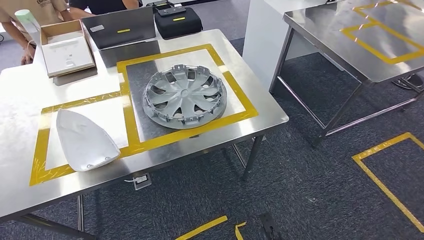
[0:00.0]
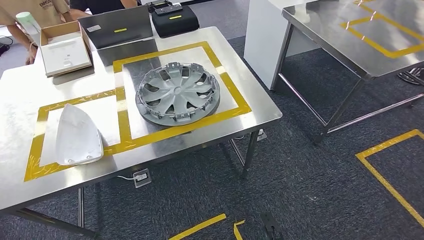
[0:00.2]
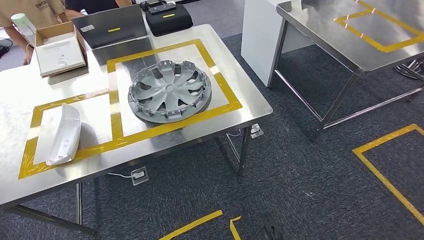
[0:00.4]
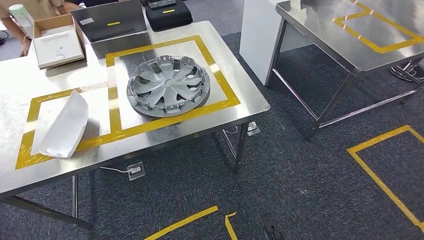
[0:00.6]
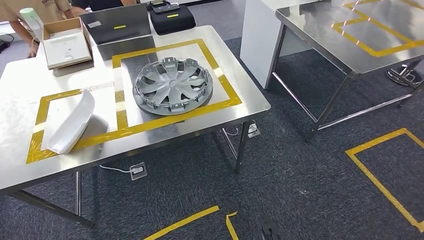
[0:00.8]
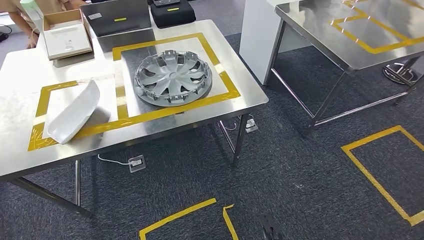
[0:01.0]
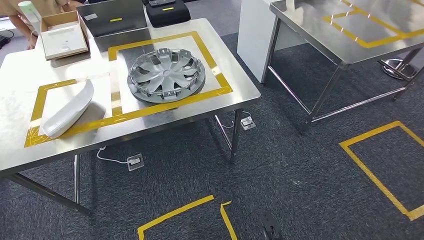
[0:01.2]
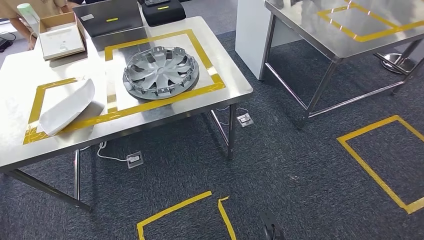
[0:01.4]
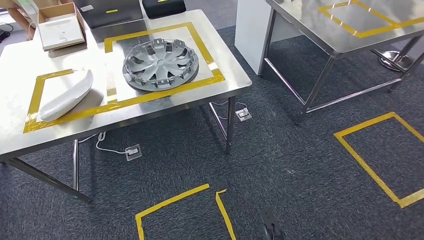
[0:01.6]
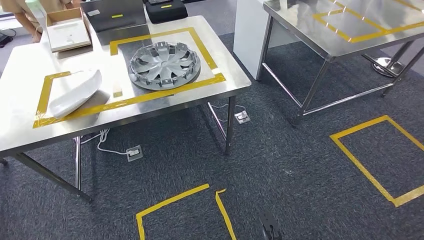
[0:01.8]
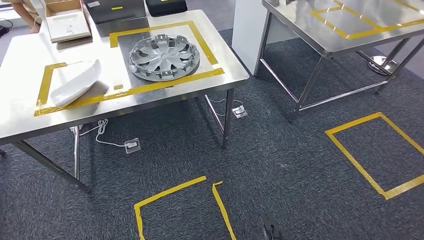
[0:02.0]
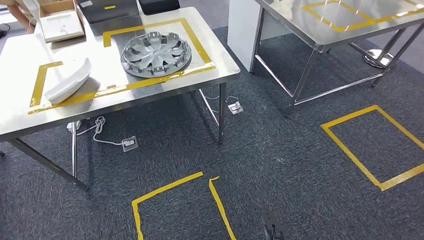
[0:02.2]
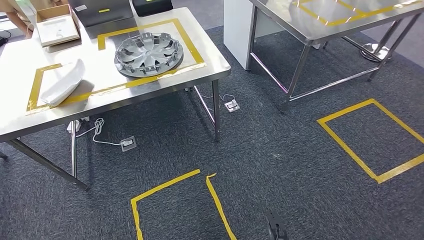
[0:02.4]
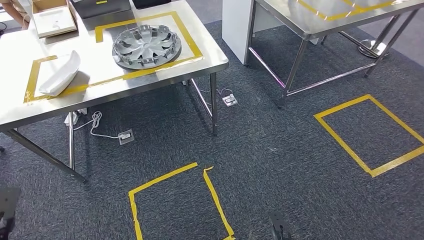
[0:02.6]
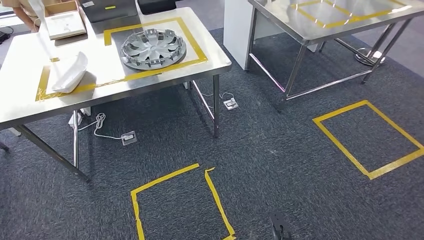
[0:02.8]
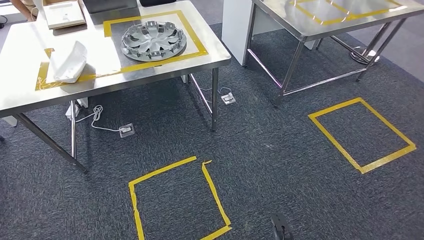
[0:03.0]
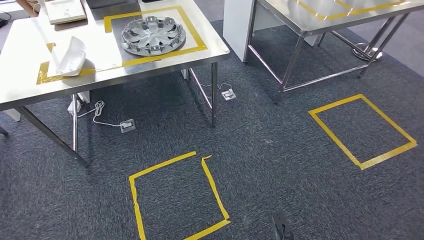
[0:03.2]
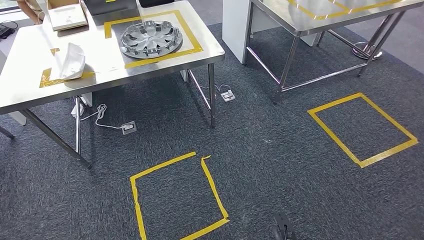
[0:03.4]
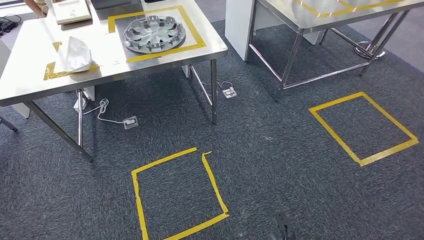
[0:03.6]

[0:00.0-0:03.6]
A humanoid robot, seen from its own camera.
Step, 0:00.2 to 0:03.6: Return to the initial position at the workbench.
